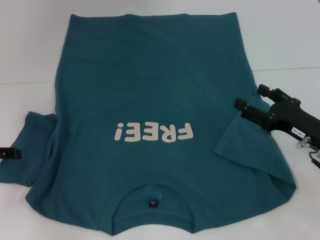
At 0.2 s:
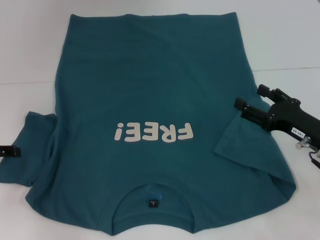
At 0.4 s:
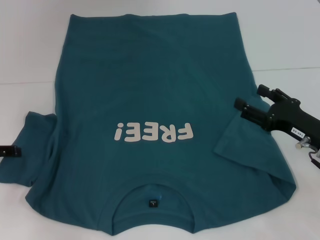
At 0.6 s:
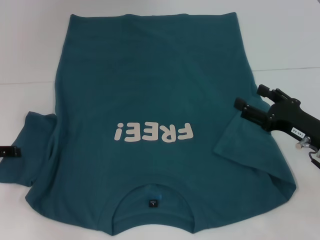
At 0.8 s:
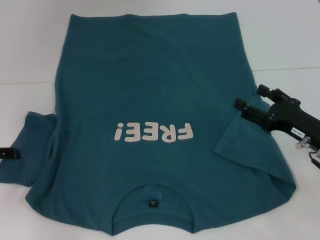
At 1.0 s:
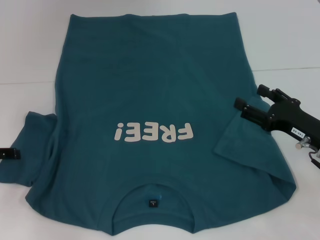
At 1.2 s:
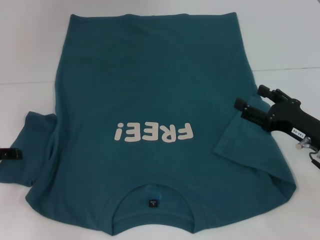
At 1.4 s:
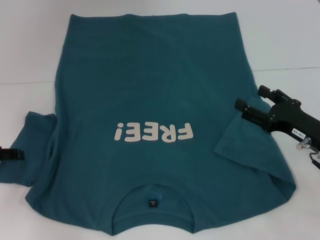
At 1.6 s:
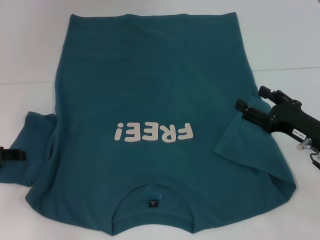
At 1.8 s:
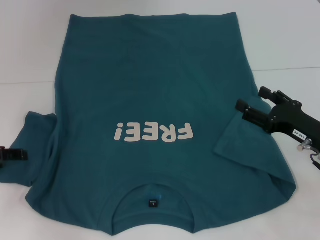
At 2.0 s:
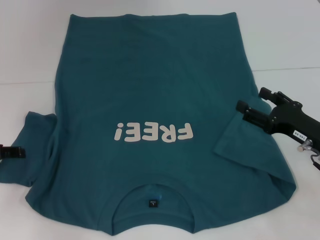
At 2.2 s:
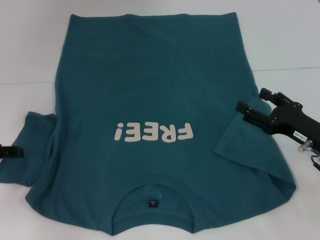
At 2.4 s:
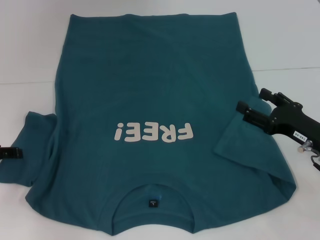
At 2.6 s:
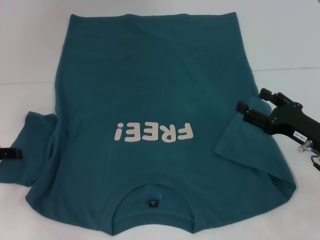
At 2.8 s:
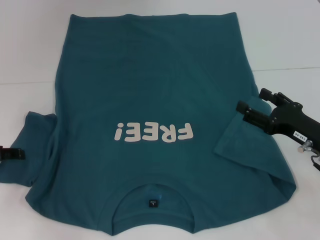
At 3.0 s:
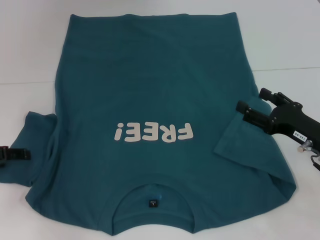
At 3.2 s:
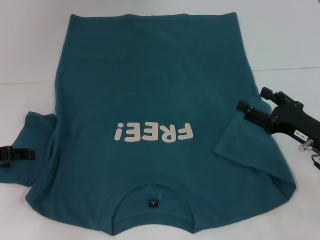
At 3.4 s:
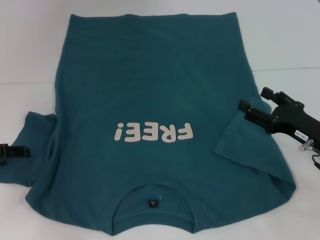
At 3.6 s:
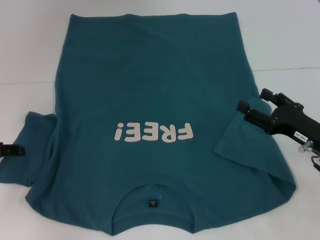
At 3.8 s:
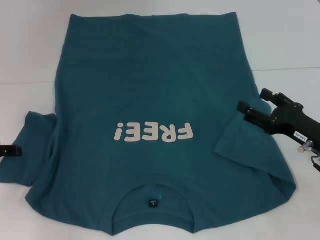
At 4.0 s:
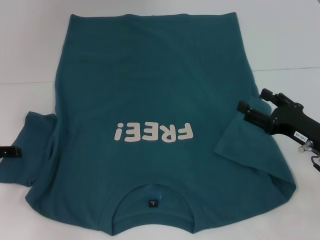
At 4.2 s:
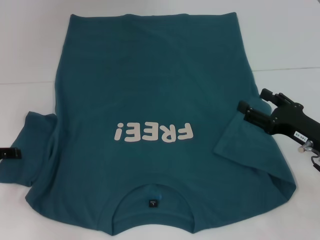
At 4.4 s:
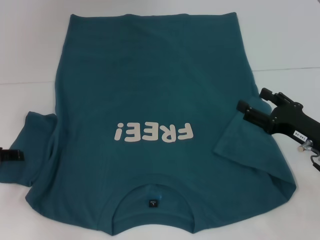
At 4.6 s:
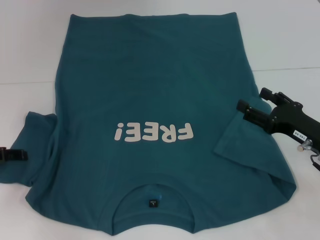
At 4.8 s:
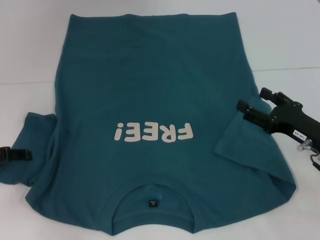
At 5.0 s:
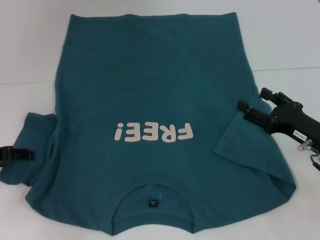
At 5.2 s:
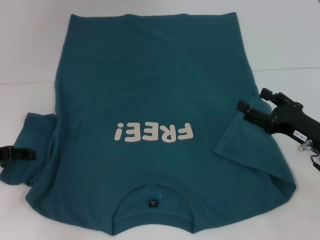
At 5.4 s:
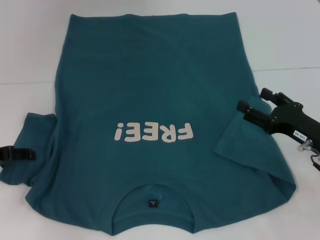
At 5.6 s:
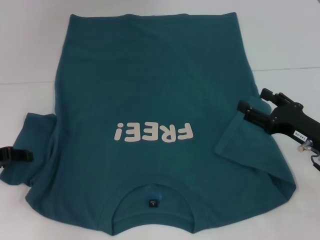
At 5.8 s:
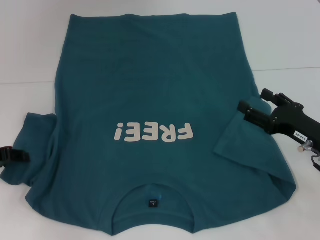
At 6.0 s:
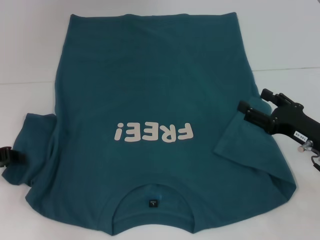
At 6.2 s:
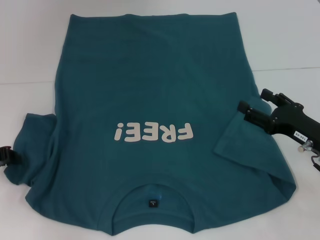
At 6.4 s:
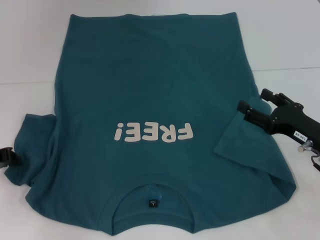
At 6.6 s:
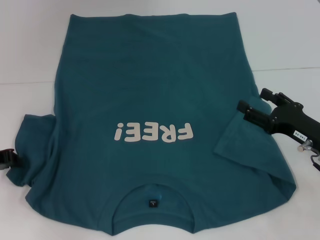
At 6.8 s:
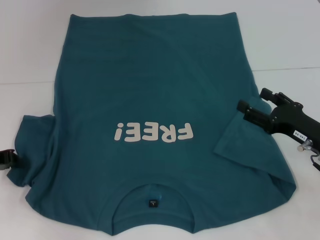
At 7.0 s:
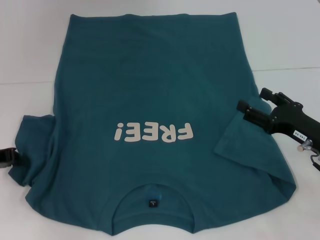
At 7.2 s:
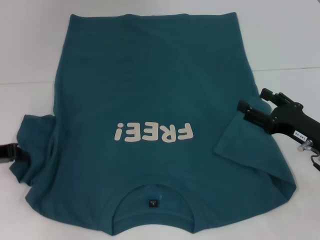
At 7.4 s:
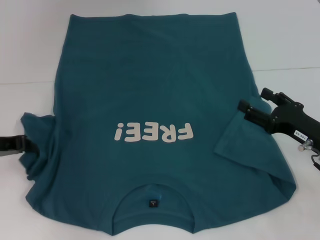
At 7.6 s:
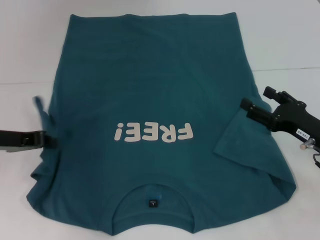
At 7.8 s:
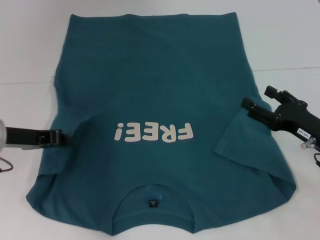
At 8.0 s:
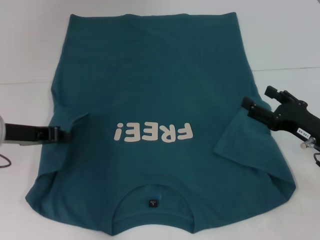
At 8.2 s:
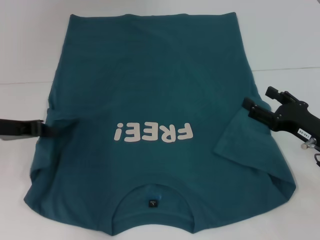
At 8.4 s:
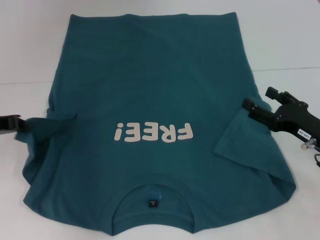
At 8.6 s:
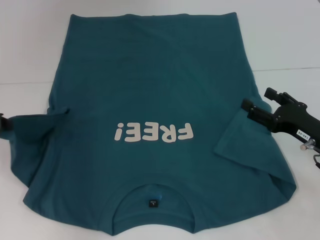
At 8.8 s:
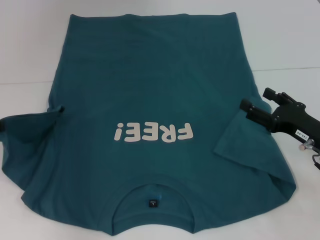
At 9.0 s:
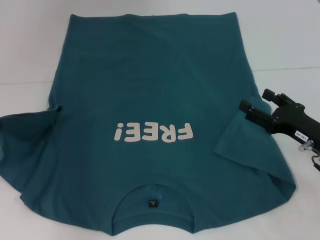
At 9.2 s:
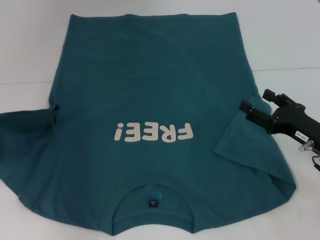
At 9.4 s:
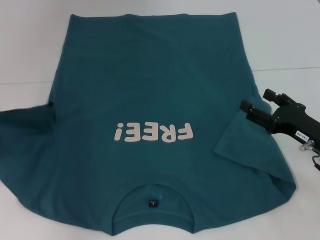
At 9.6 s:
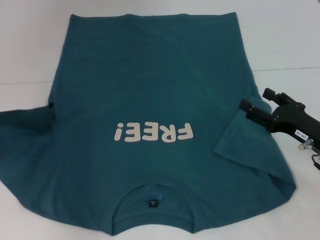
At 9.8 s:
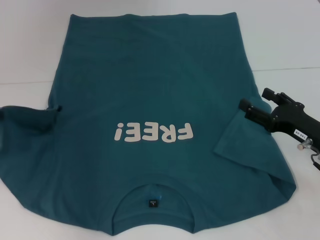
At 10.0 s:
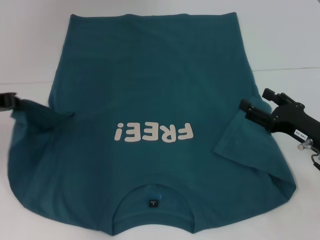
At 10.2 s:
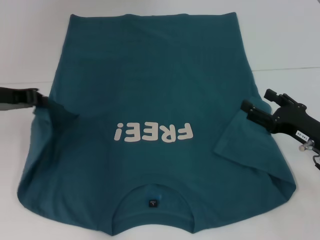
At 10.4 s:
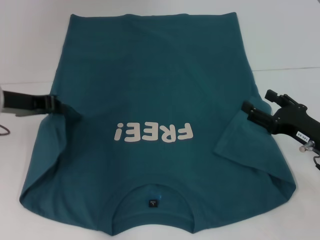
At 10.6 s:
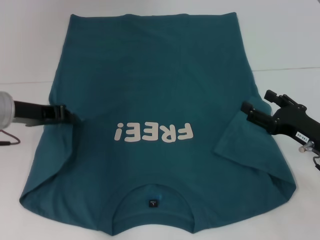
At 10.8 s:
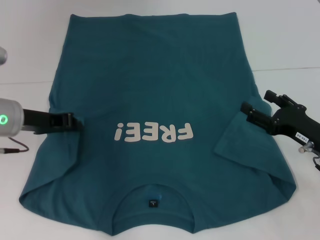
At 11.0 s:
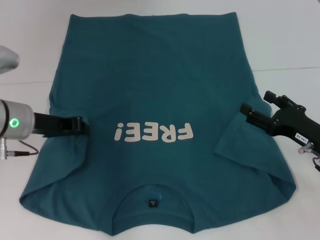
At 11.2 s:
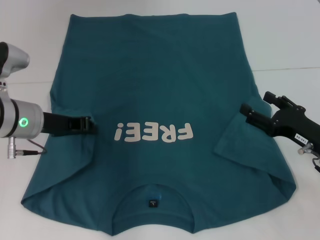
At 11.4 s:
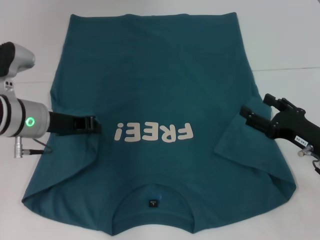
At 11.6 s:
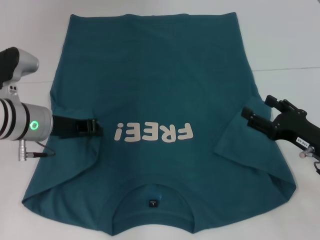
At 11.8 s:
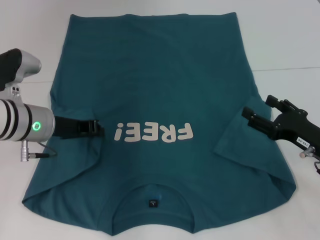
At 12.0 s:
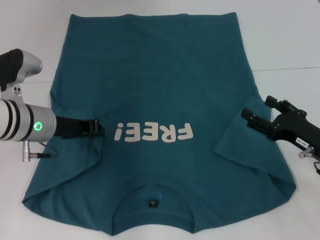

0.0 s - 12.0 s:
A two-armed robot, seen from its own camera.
0.0 s - 1.6 s: Neither gripper changes place.
1.6 s - 4.4 s: Both grippers stay about where they are.
6.0 s - 7.6 s: The left gripper moves to the right, approximately 5 cm, and closes.
7.6 s - 9.0 s: The left gripper moves to the left, some 5 cm.
9.0 s - 10.4 s: The left gripper travels to the right by approximately 10 cm.
10.4 s - 12.0 s: The left gripper travels to the right and downward by roughly 10 cm.

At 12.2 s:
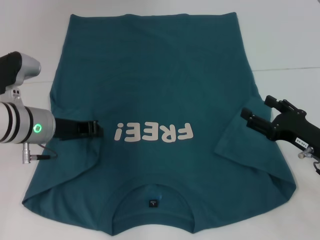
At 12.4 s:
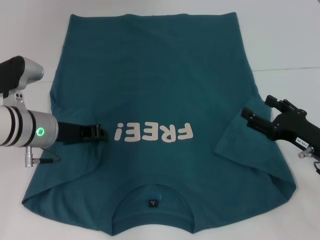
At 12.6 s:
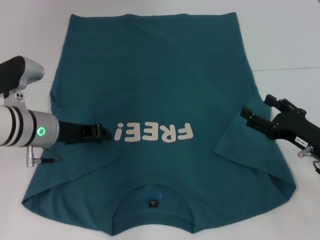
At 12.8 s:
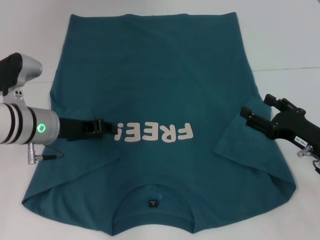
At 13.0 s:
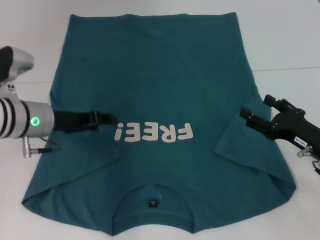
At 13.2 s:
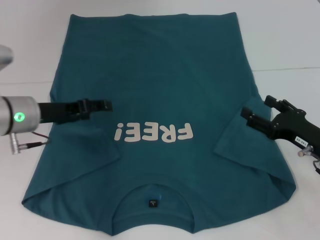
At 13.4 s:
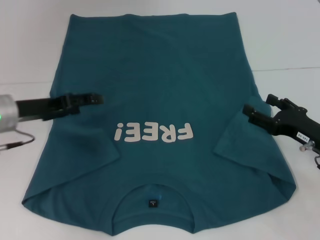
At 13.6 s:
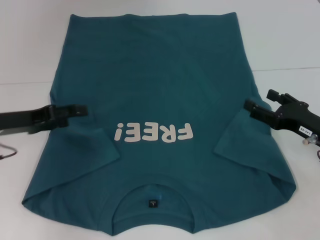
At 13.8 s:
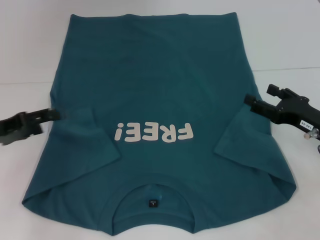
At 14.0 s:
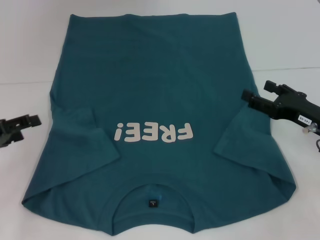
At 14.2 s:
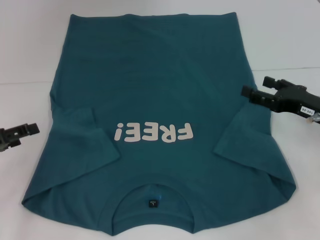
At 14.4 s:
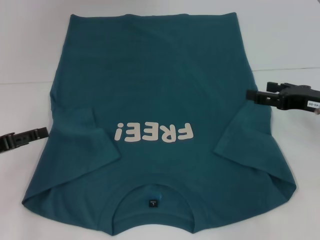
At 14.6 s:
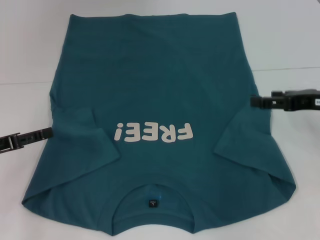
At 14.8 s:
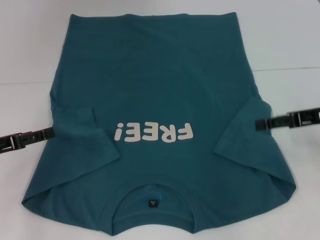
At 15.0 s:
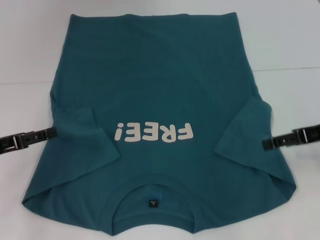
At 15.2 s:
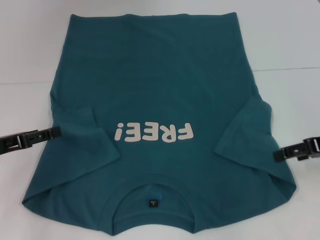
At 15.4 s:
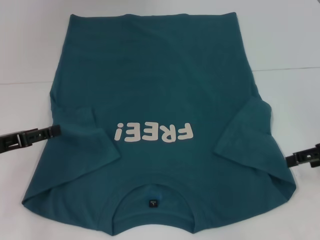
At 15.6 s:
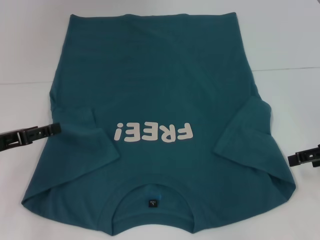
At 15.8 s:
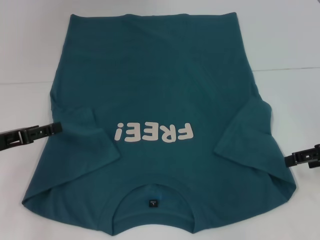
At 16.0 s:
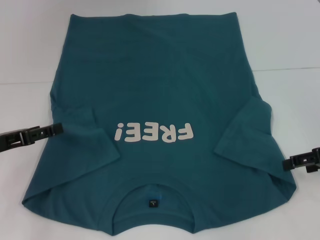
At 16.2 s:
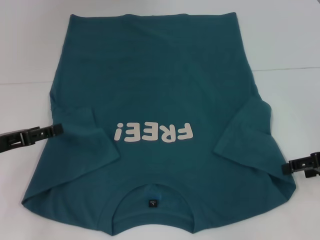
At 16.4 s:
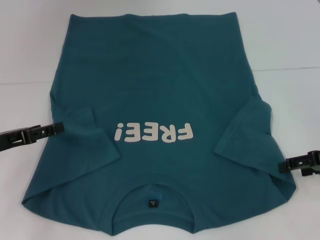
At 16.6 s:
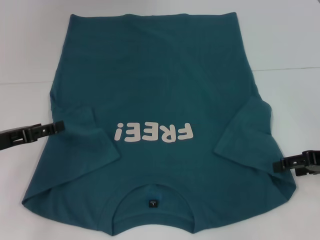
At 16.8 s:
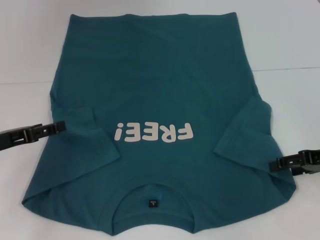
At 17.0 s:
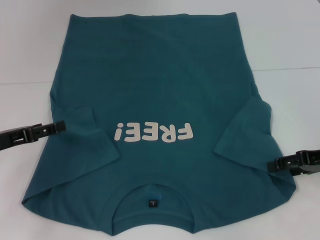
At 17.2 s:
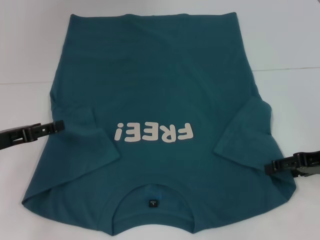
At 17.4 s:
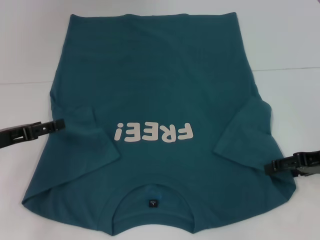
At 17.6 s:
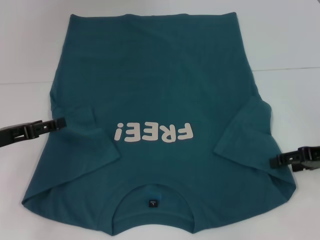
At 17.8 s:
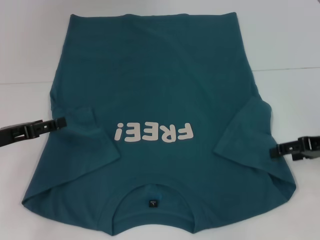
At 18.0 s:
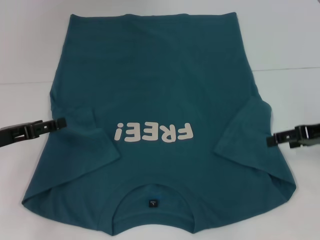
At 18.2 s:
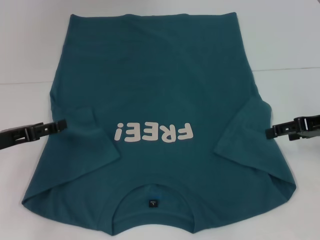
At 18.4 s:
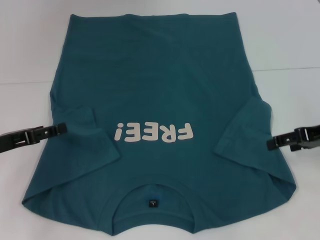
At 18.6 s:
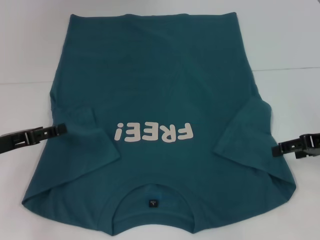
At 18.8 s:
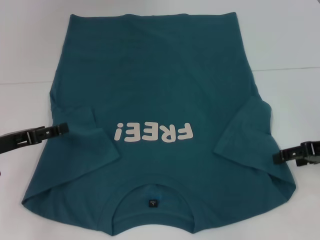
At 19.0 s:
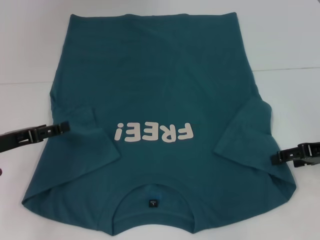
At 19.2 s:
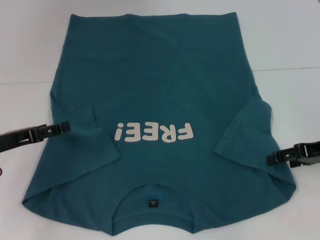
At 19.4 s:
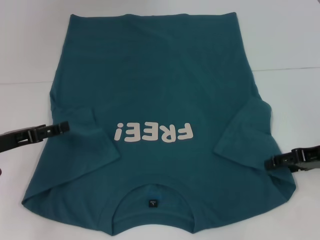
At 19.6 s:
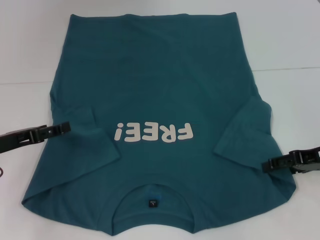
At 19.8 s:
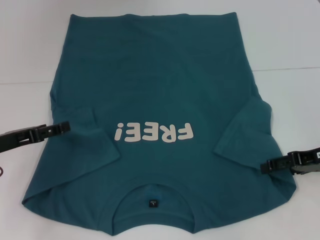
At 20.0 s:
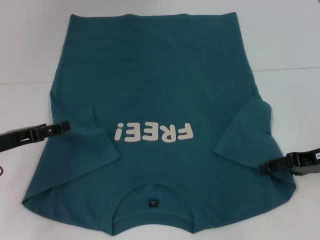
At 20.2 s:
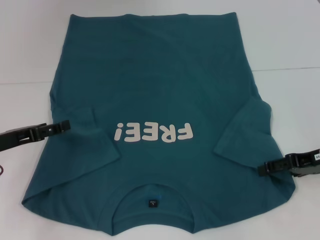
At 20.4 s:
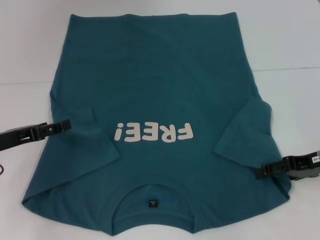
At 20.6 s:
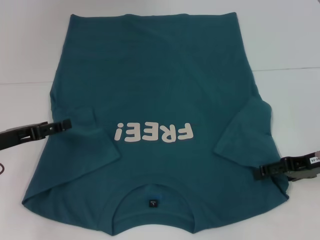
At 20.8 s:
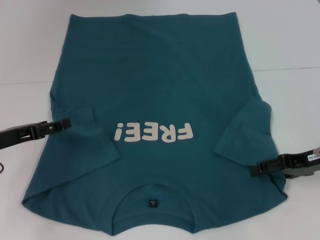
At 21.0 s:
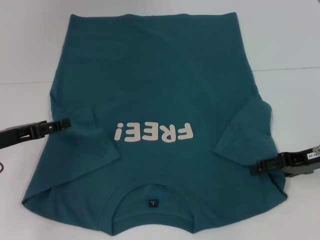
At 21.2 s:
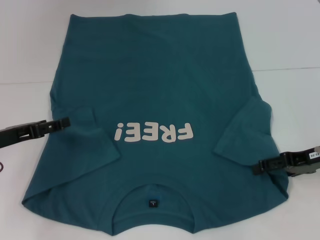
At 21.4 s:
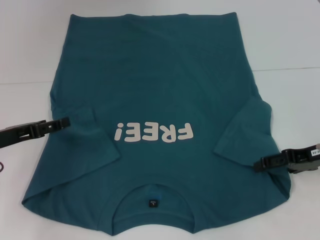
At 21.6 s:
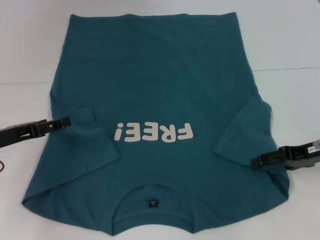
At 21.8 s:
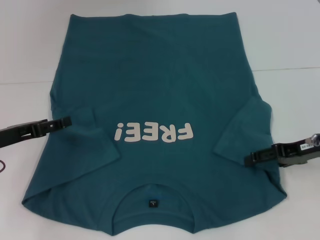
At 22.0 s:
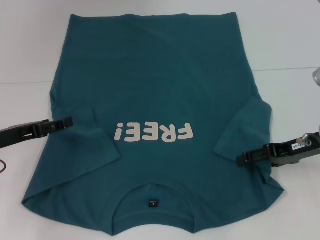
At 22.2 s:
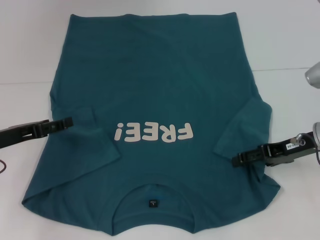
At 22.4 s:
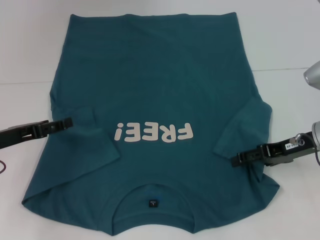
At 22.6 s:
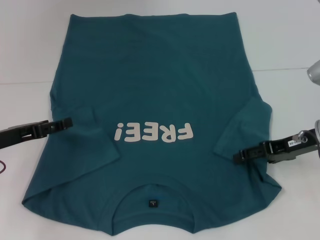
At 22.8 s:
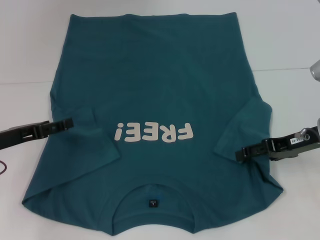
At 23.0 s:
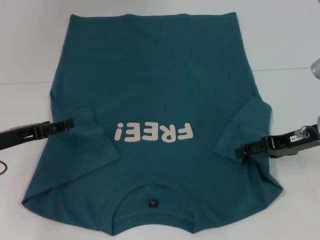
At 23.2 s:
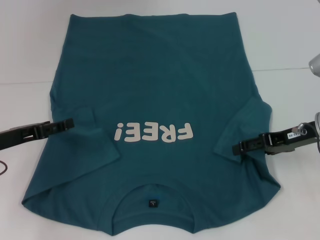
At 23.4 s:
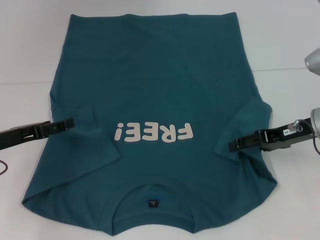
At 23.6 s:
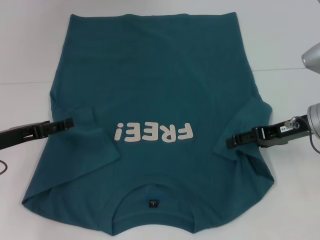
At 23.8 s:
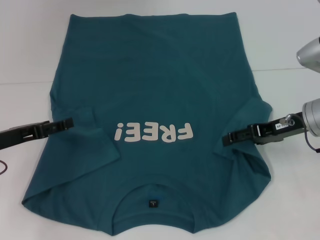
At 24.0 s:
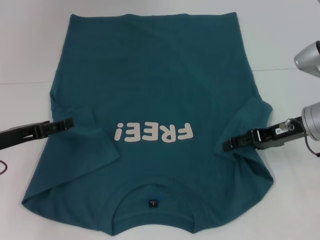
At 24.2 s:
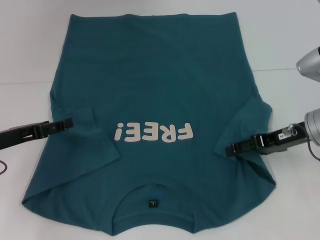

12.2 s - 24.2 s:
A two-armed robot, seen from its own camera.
12.2 s - 13.8 s: The left gripper is displaced to the left by roughly 10 cm, and opens.
13.8 s - 15.2 s: The right gripper moves upward, about 10 cm.
15.2 s - 16.6 s: There are only small adjustments of the grippers.
16.6 s - 18.2 s: The right gripper moves approximately 5 cm.
18.2 s - 19.8 s: The right gripper ends up approximately 5 cm from where it was.
19.8 s - 21.2 s: Both grippers stay put.
21.2 s - 22.6 s: The grippers make only small movements.
22.6 s - 24.2 s: There are only small adjustments of the grippers.
